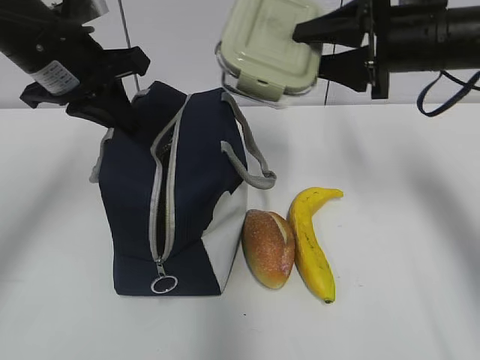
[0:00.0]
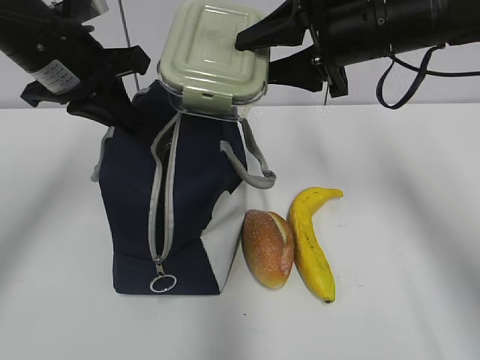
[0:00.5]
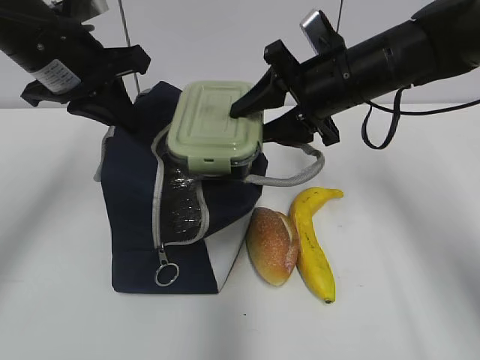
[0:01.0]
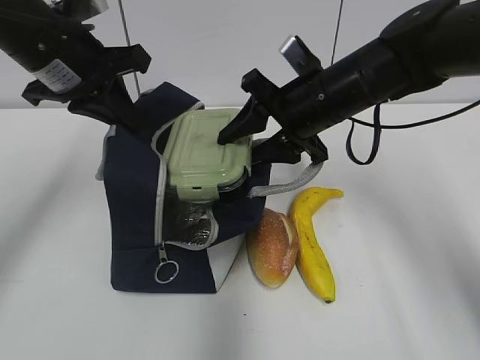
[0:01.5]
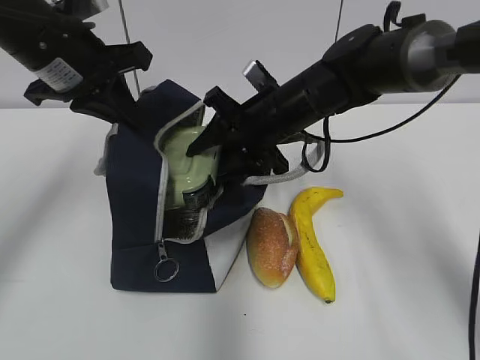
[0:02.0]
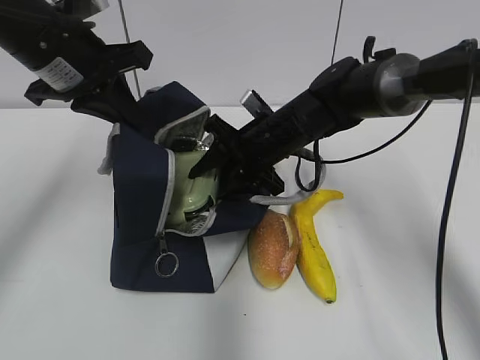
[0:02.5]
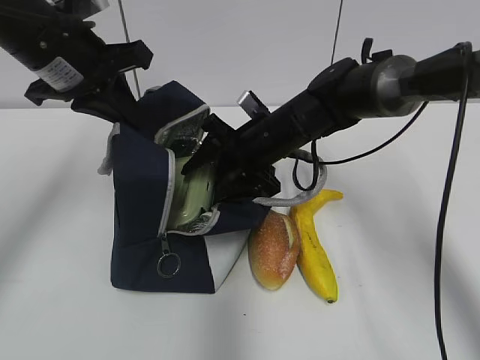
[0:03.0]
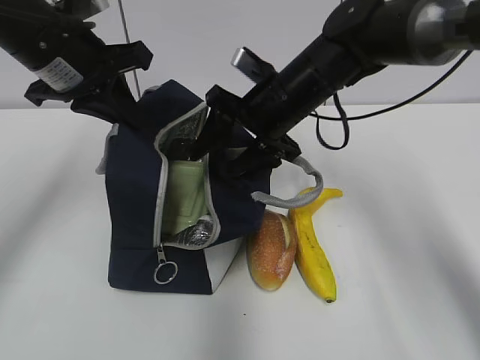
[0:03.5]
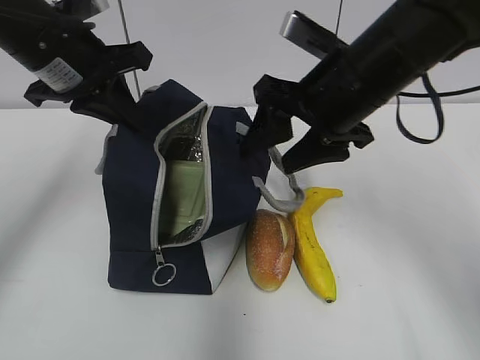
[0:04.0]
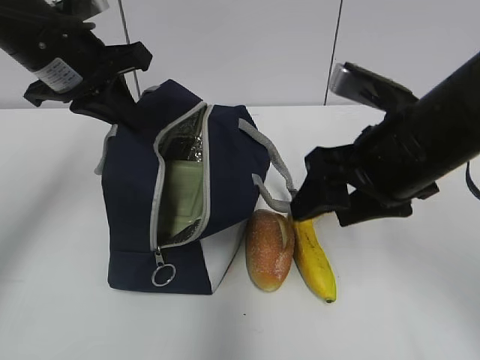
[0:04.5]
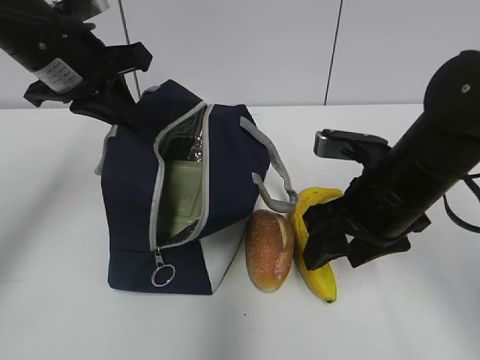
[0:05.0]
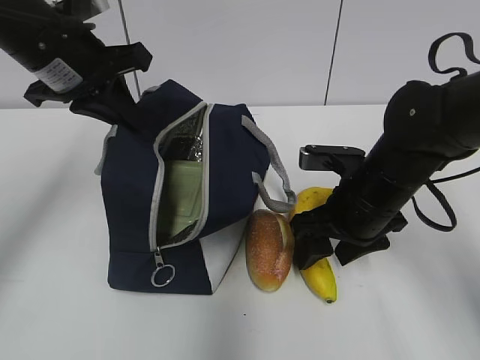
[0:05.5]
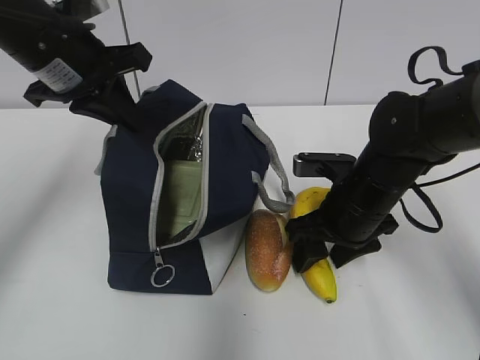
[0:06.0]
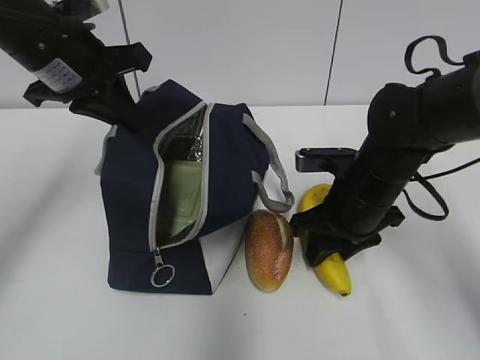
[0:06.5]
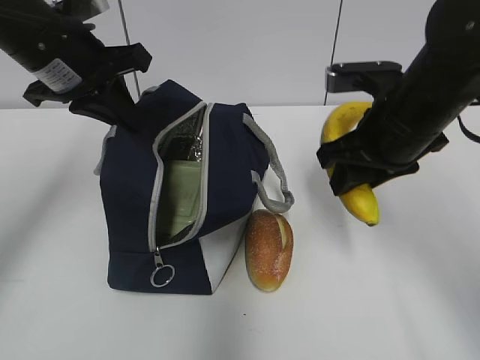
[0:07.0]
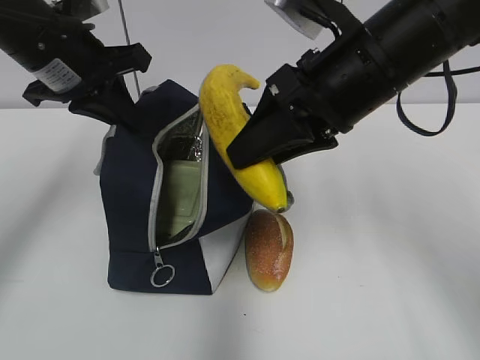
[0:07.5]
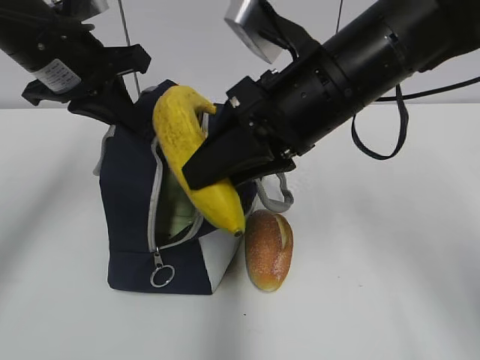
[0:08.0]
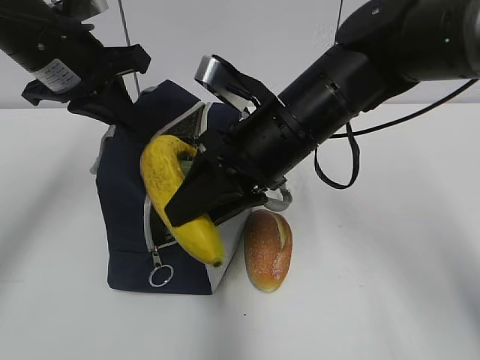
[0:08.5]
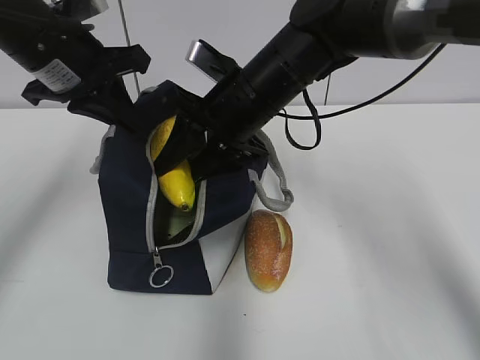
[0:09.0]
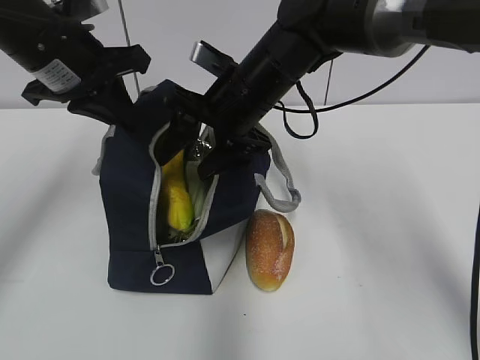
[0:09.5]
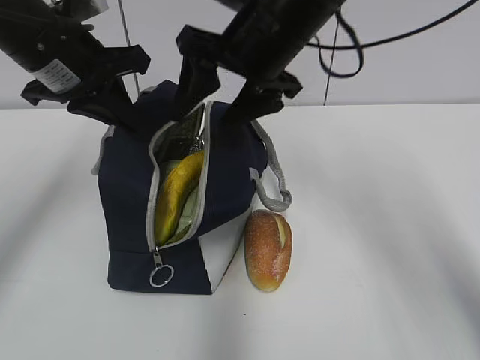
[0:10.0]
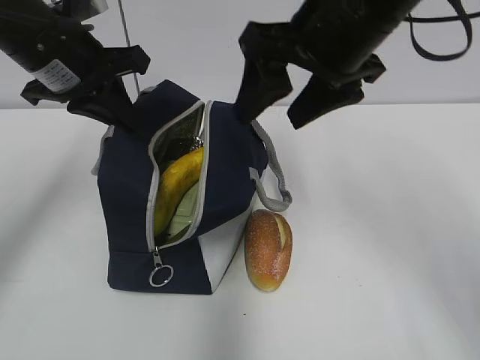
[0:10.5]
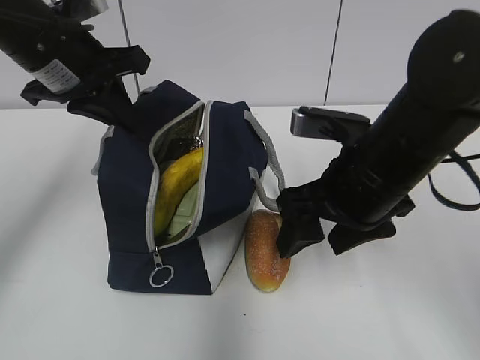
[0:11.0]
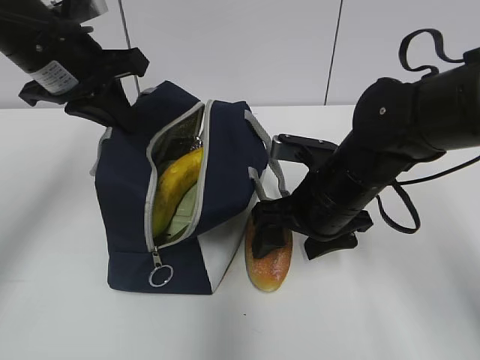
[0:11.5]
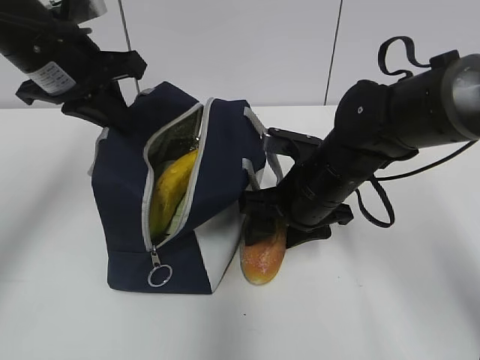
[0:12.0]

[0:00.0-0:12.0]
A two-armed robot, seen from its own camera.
0:00.0 to 0:02.0: The right gripper travels to the left and downward by approximately 15 cm.
0:02.0 to 0:04.0: The right gripper goes approximately 15 cm backward, upward and to the right.
0:04.0 to 0:06.0: The right gripper shifts approximately 15 cm downward.
0:06.0 to 0:08.0: The right gripper moves upward and to the left, some 15 cm.
0:08.0 to 0:10.0: The right gripper shifts about 5 cm forward, and opens up.
0:10.0 to 0:12.0: The right gripper travels downward by roughly 15 cm.

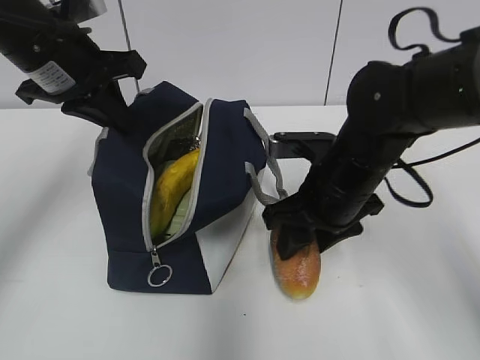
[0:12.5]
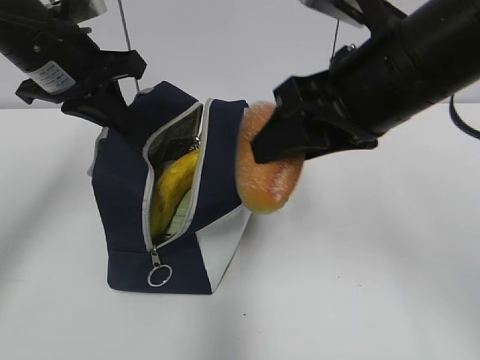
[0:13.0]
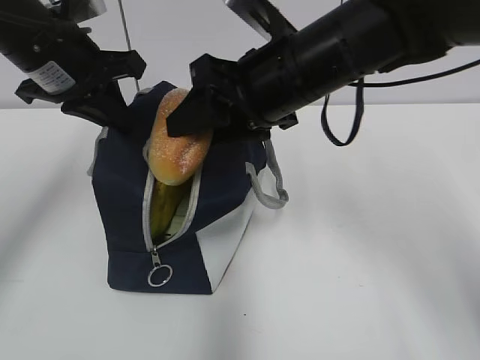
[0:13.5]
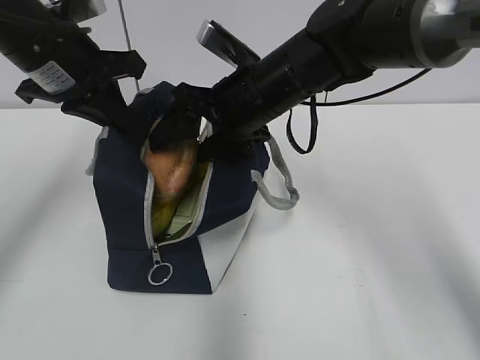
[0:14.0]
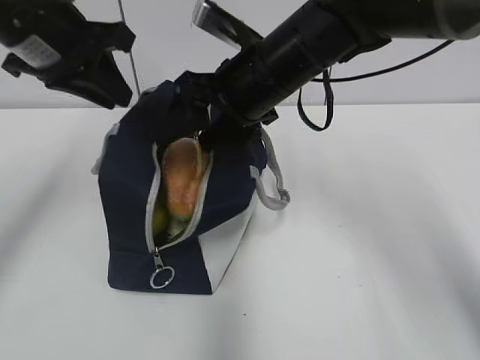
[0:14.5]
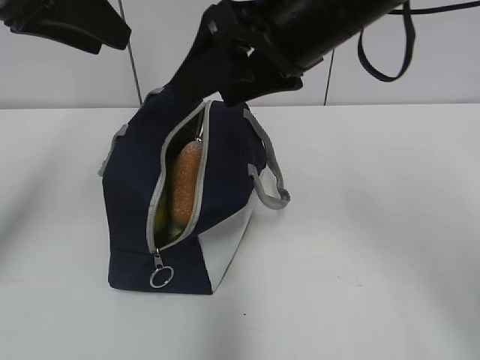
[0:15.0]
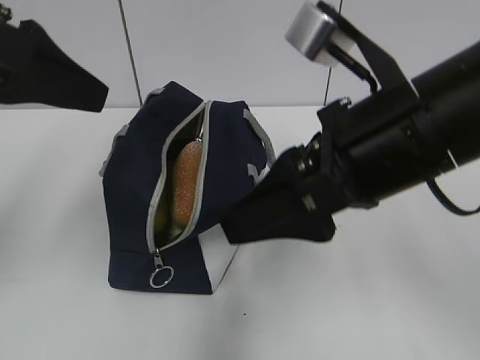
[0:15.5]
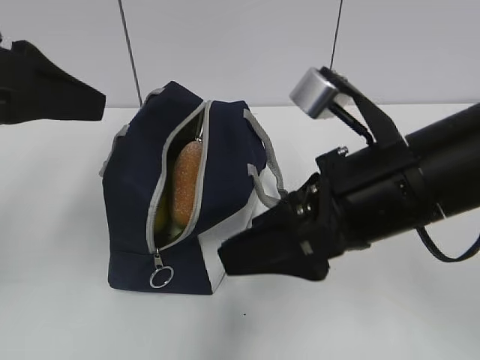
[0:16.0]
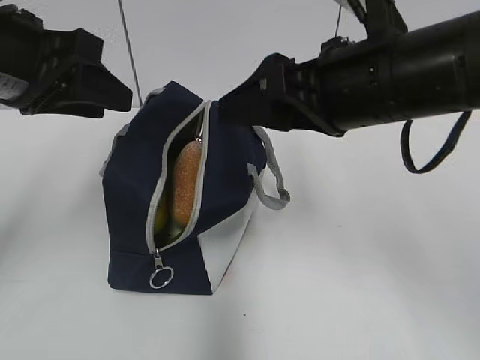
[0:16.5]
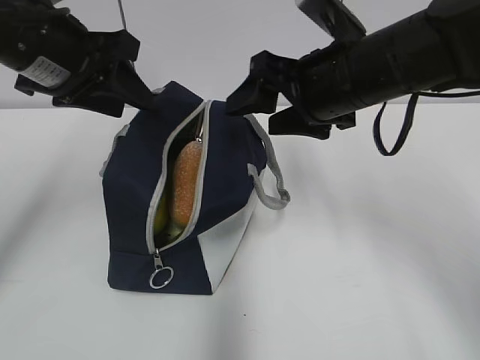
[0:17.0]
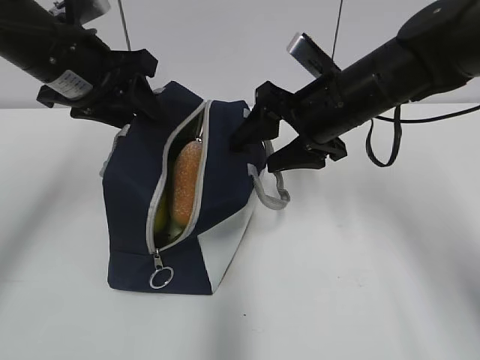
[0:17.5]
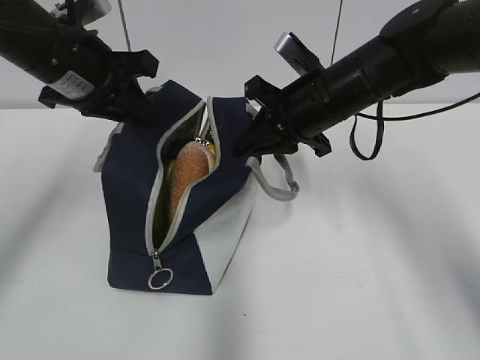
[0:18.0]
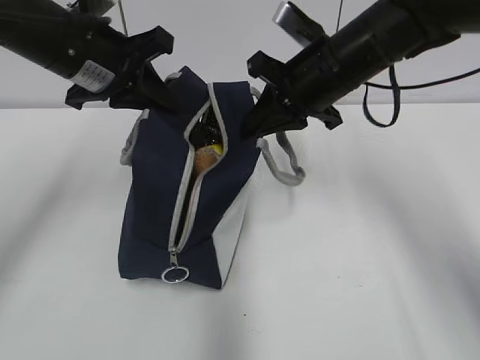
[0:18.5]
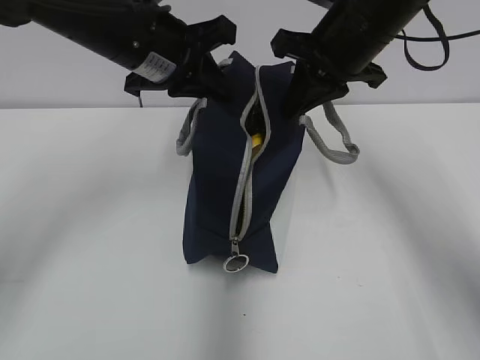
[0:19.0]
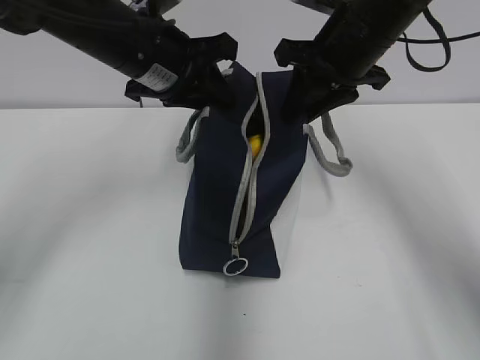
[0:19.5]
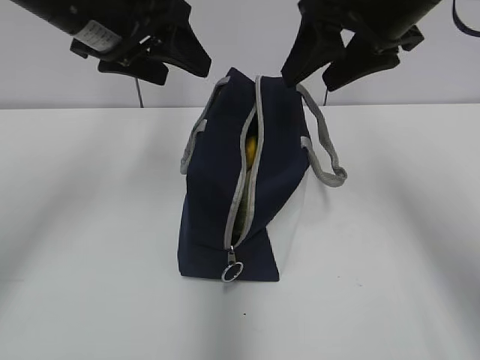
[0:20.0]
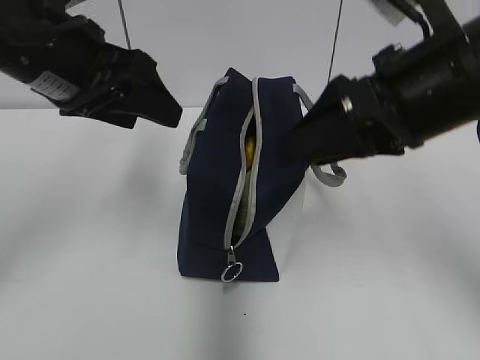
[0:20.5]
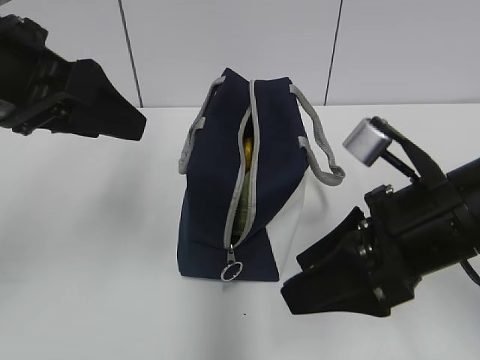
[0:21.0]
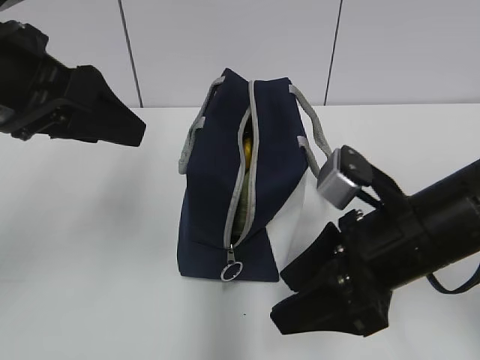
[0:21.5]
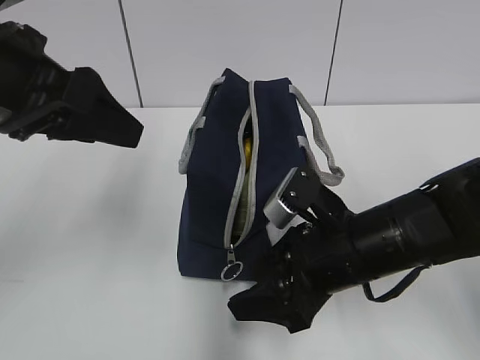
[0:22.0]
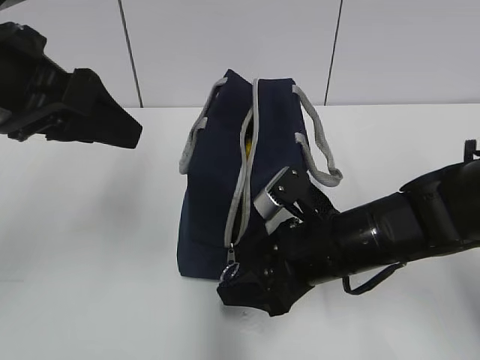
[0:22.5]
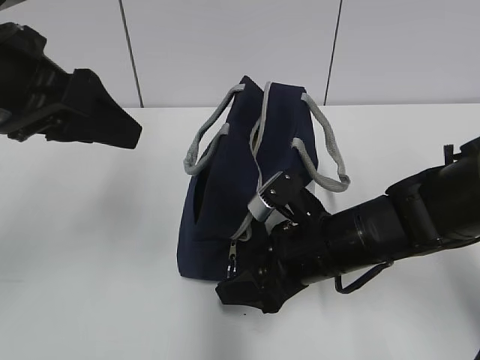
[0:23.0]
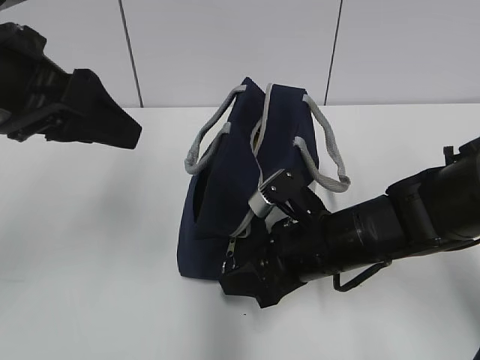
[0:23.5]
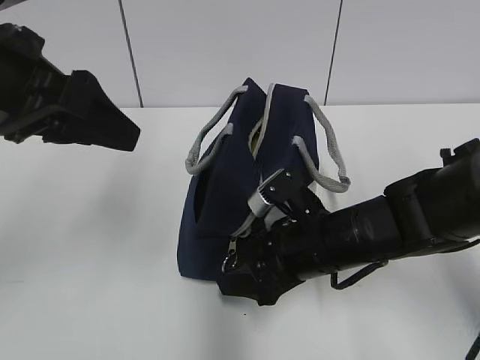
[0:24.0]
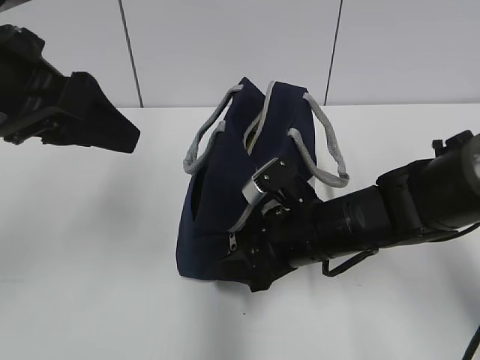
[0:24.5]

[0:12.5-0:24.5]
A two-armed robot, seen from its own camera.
0:12.5 to 0:14.5: The right gripper travels upward, to the left and forward by roughly 10 cm.
0:14.5 to 0:16.5: The right gripper travels backward and to the right by roughly 10 cm, while the left gripper moves backward, about 5 cm.
0:16.5 to 0:18.5: The two grippers go roughly 10 cm forward. The left gripper closes up, while the right gripper closes its fingers.
0:18.5 to 0:20.5: The left gripper moves backward, some 5 cm, and opens, while the right gripper shifts approximately 15 cm backward, and opens.
0:20.5 to 0:22.5: The left gripper shifts by approximately 5 cm, while the right gripper heads downward, covering some 20 cm.
0:22.5 to 0:24.5: The grippers move only a little.

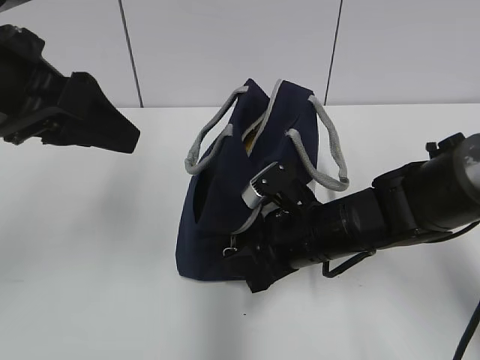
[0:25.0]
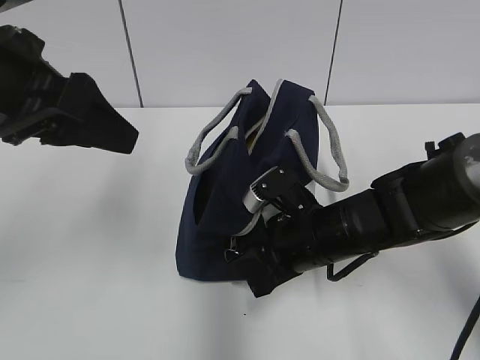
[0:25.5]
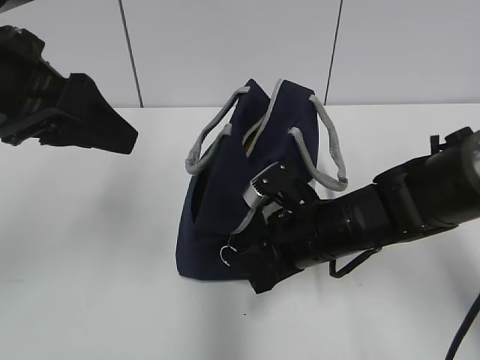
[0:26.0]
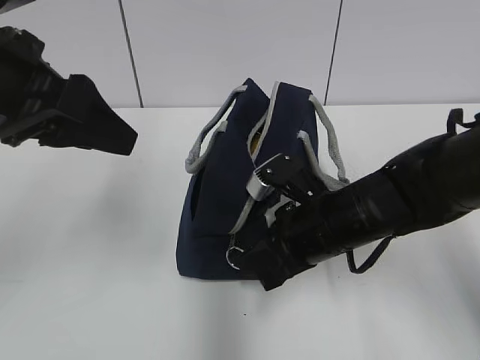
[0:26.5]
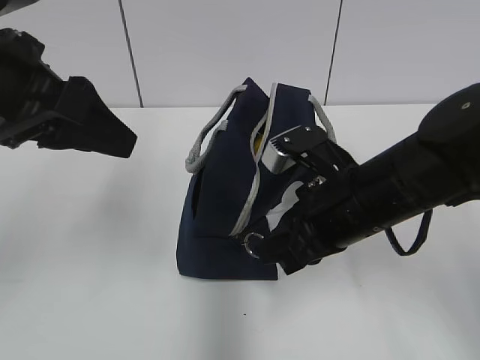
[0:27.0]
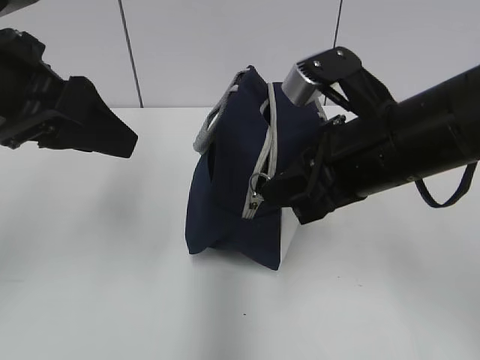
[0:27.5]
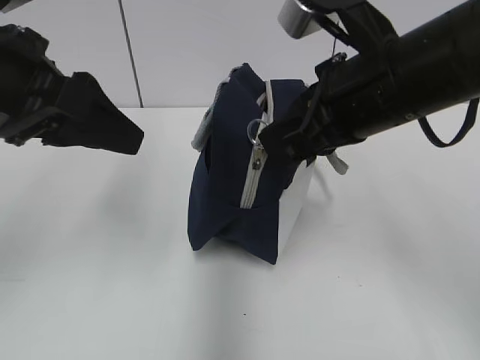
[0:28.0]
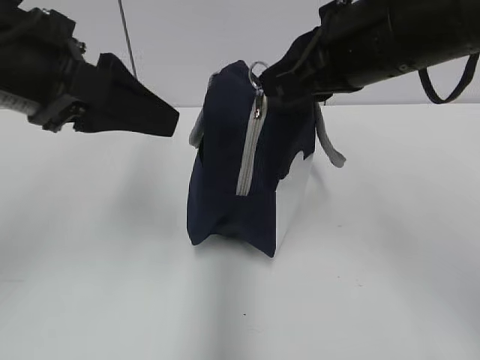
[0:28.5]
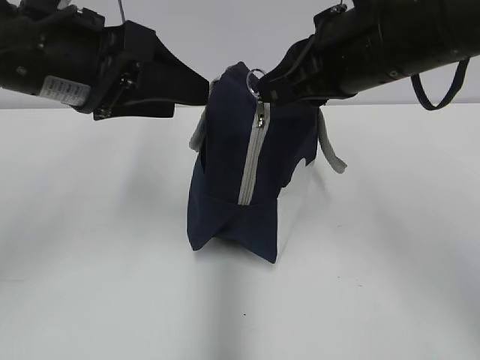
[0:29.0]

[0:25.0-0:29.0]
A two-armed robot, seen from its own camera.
0:25.0 to 0:27.0: The right gripper is displaced upward by some 10 cm.
0:27.0 to 0:29.0: The left gripper changes place by some 5 cm. The right gripper travels upward by approximately 15 cm.
